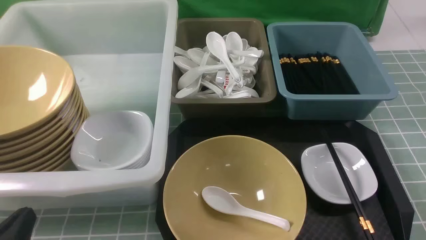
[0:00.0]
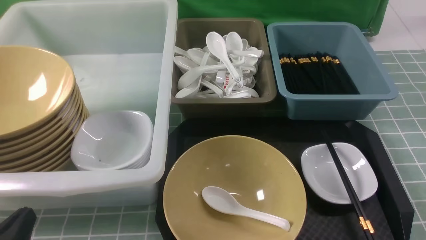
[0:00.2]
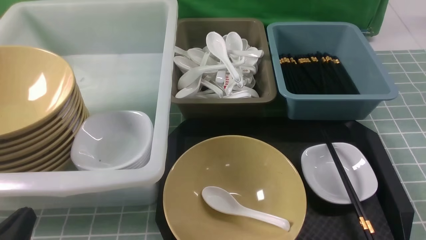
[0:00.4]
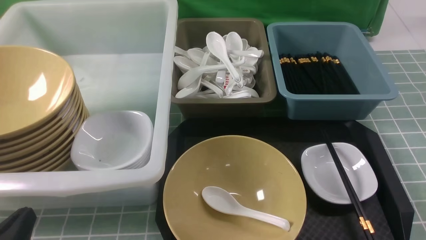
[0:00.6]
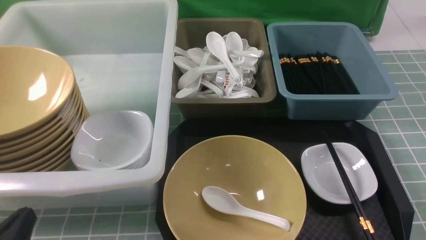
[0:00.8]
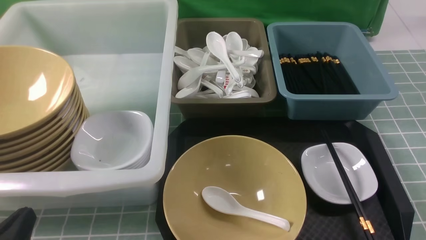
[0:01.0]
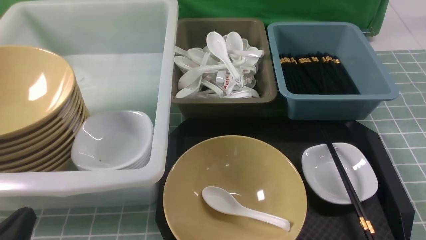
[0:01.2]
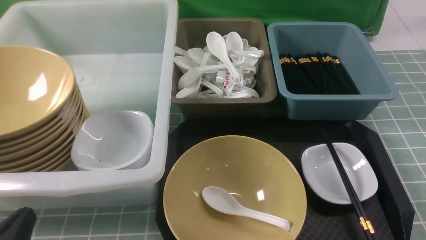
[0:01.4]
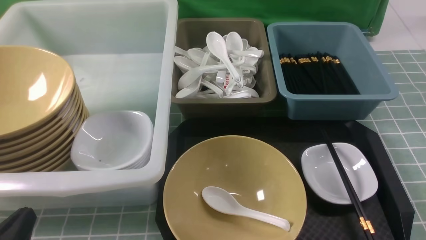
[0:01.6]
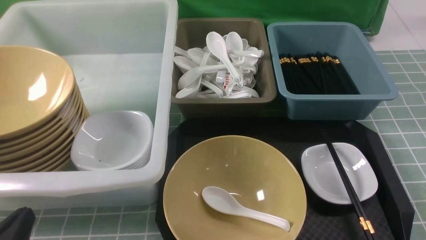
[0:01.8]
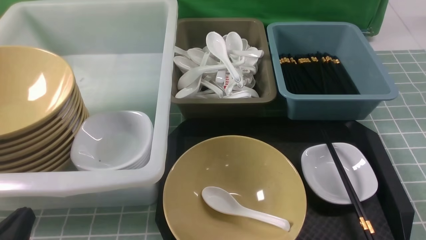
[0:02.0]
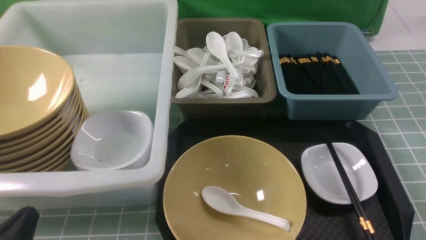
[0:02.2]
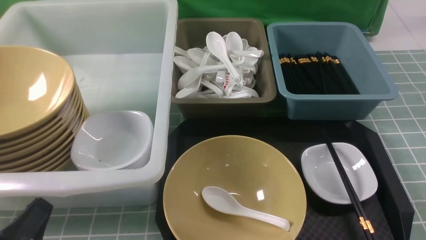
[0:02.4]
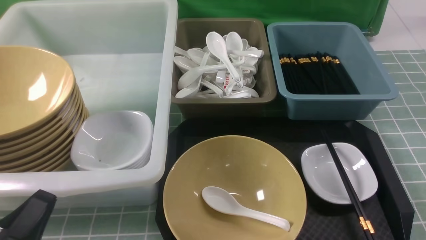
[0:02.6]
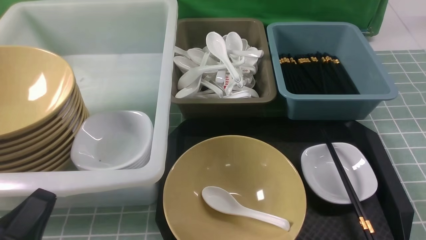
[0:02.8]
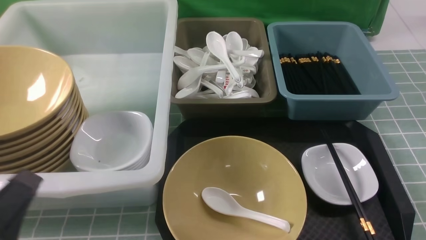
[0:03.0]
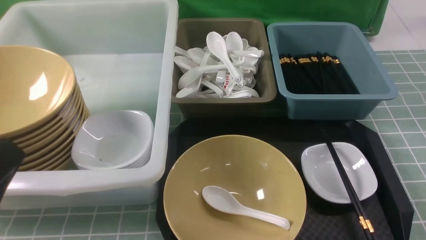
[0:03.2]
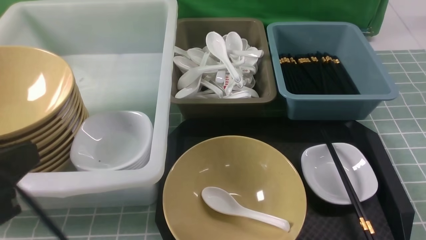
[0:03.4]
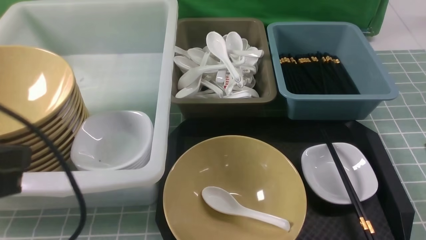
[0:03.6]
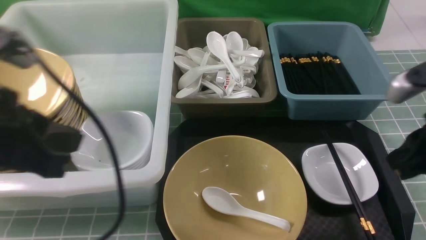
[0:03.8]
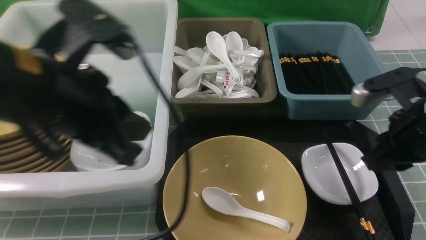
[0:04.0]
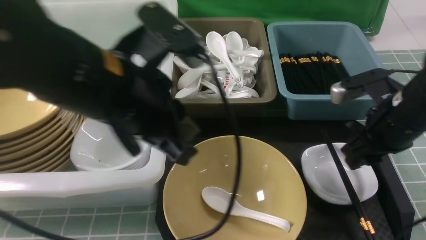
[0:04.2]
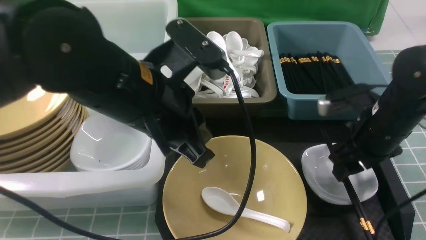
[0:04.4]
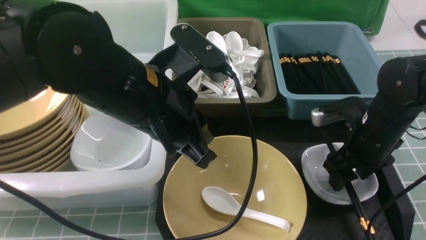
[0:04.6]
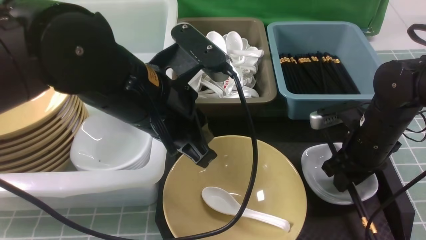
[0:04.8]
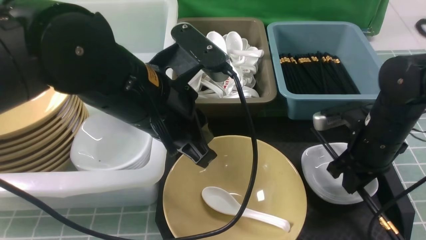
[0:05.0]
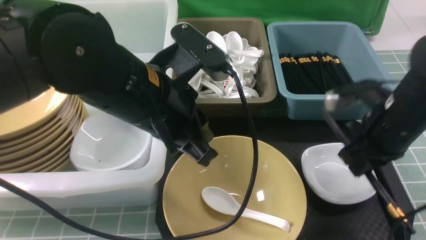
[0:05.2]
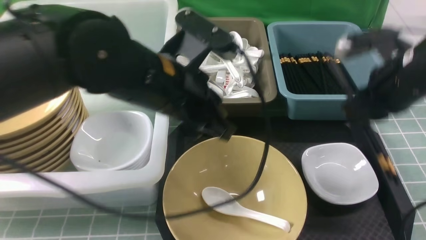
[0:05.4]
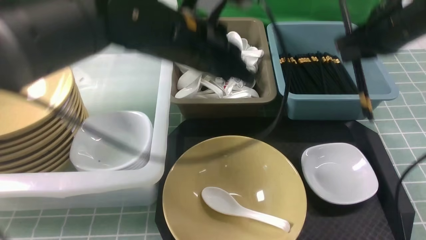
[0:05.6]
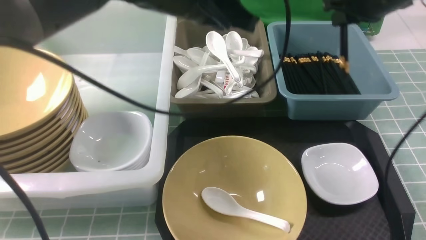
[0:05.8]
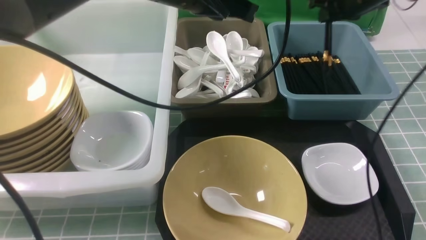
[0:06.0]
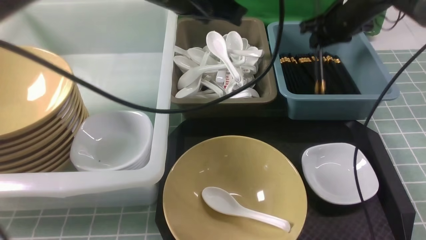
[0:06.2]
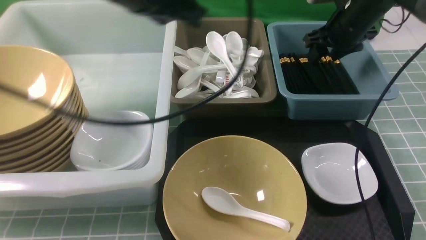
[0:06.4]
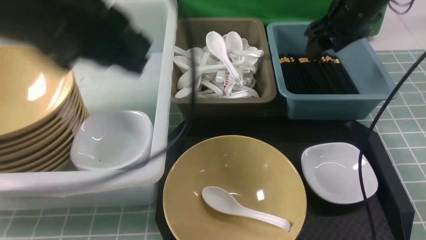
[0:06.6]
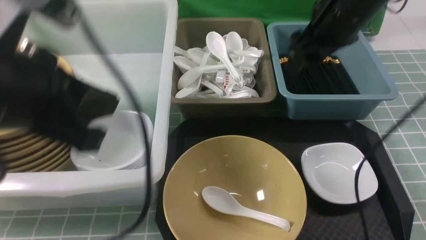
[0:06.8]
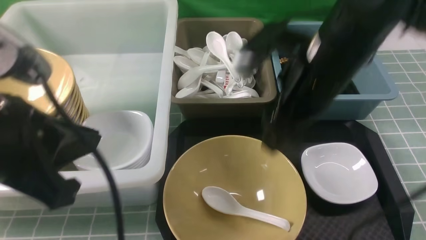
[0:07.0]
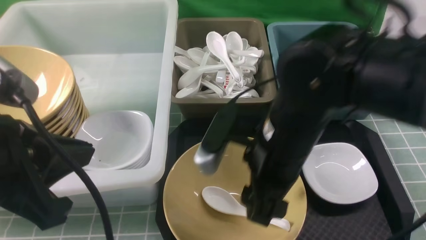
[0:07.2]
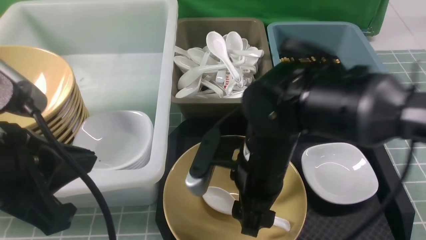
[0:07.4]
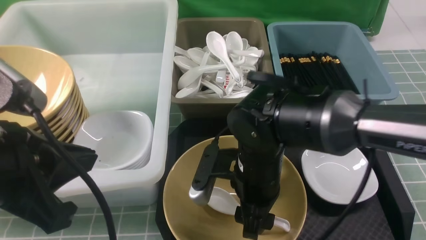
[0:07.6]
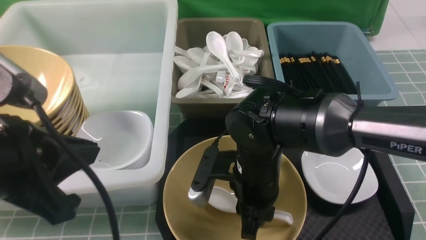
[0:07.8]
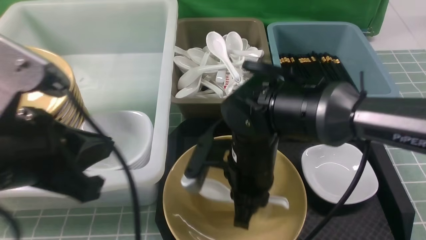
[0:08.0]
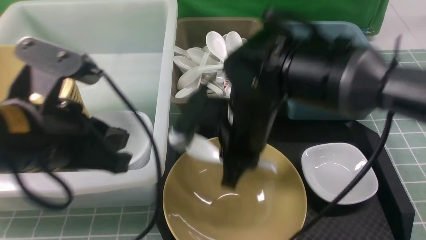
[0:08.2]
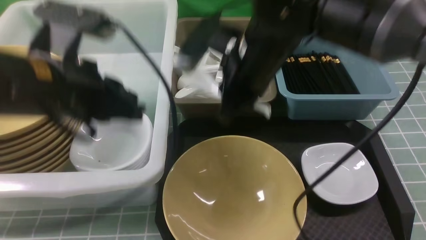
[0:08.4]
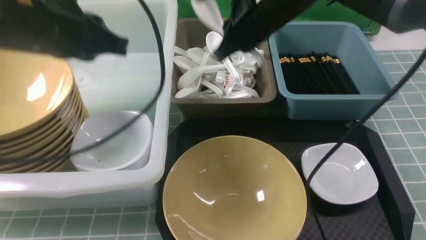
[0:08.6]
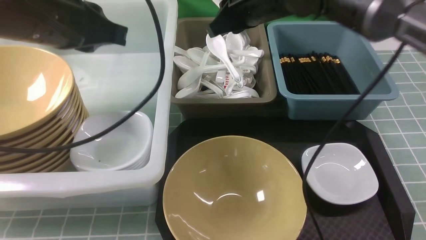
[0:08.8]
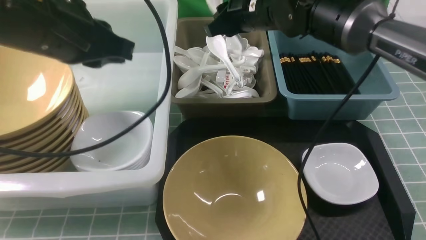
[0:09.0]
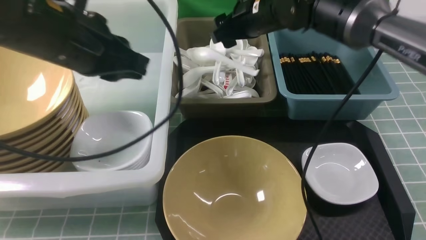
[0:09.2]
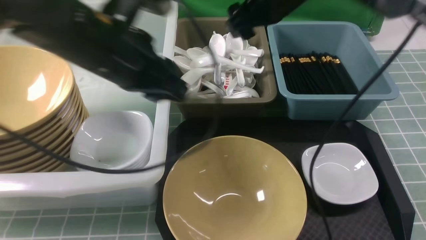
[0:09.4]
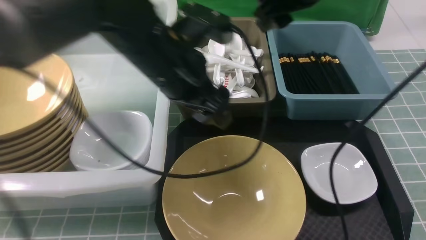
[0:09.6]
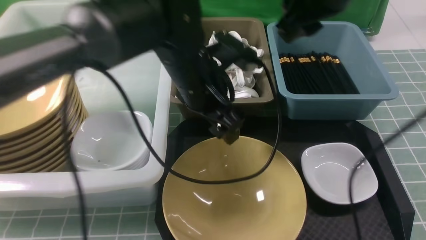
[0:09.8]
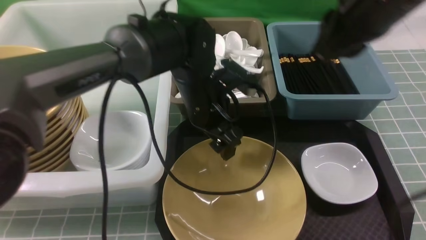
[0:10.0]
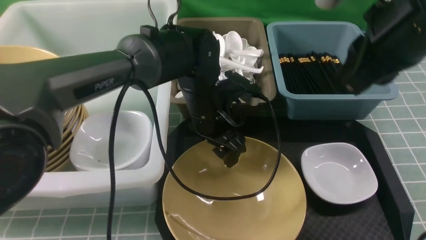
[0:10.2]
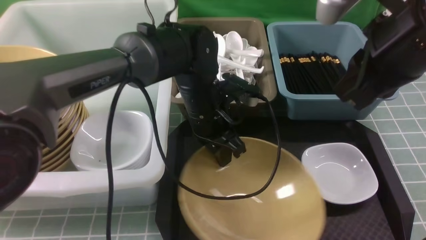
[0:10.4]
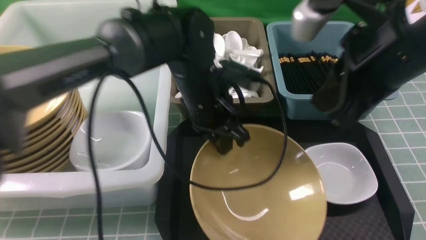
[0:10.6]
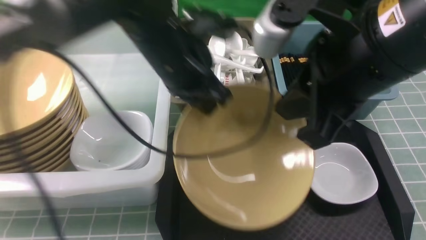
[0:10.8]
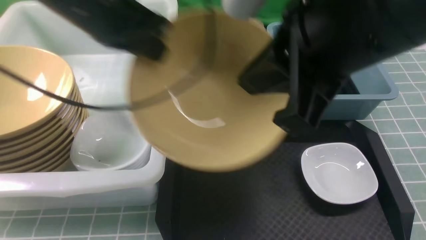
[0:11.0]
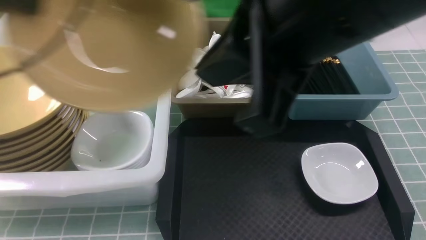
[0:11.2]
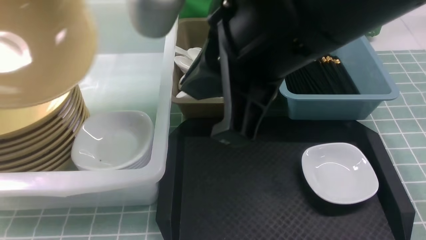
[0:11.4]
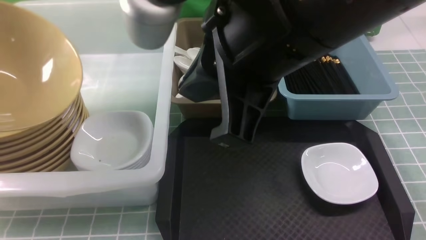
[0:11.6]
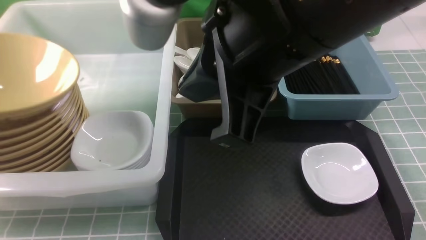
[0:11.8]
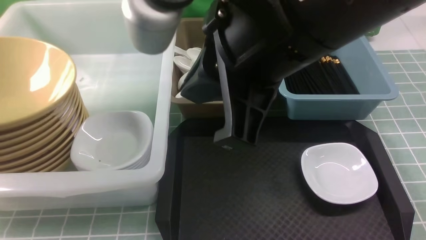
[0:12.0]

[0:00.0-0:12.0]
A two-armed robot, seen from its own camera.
Task of the whole recording: on blue table put chopsticks spoon bowls plates into blue grey white boxes.
Step, 0.0 to 5.0 s: use the right arm to grab the chopsticks.
Step, 5.2 to 6.8 s: use the right arm to put the chopsticks into the small storage box on the right.
Step, 7.0 to 8.0 s: use the right arm to grab the soup spoon in the middle.
Step, 8.2 to 9.2 s: use the right arm to put the soup spoon into the small storage box in the middle.
Step, 9.4 to 10.6 s: use the left arm to grab the yellow noodle bowl on the left.
Step, 10.8 to 12.0 s: use the left arm to put the noodle bowl into the large storage box on the left.
0.0 to 1.6 s: Both grippers stay about where they are.
1.6 to 3.0 s: The two grippers go roughly 5 cm upward.
3.0 to 4.4 s: The right gripper goes about 25 cm forward, and opens. The left gripper is displaced forward, to the right and upward by roughly 25 cm.
4.4 to 6.0 s: The left gripper travels forward and upward by some 10 cm; the right gripper shifts roughly 20 cm forward and upward, and closes up.
6.0 to 7.6 s: The right gripper goes roughly 30 cm backward, to the left and downward, and opens up, while the left gripper shifts about 25 cm backward and to the left.
7.6 to 9.0 s: The right gripper moves forward and upward, about 20 cm, and closes and opens again, while the left gripper goes roughly 15 cm forward.
9.0 to 10.4 s: The right gripper goes roughly 25 cm backward, to the right and upward, and closes; the left gripper goes about 20 cm to the right and downward, and opens, then closes again.
10.4 to 12.0 s: The left gripper is displaced to the left by some 40 cm, and opens its fingers, while the right gripper goes about 15 cm to the left and backward.

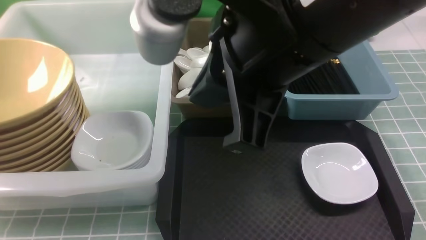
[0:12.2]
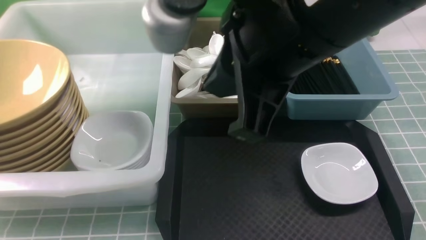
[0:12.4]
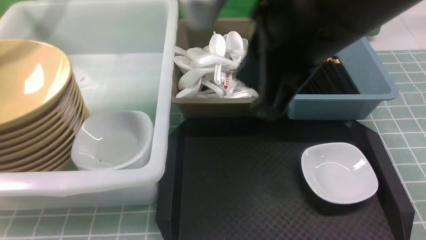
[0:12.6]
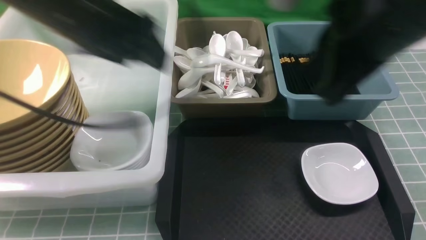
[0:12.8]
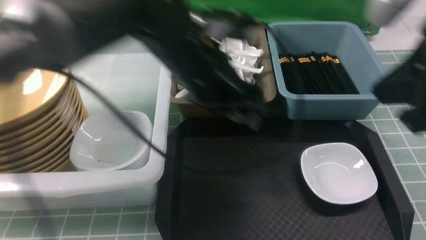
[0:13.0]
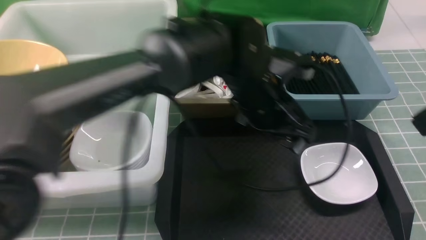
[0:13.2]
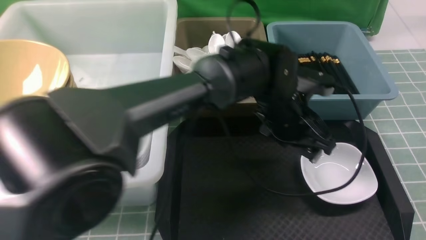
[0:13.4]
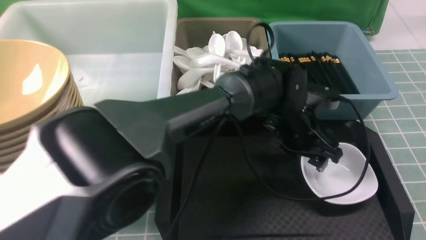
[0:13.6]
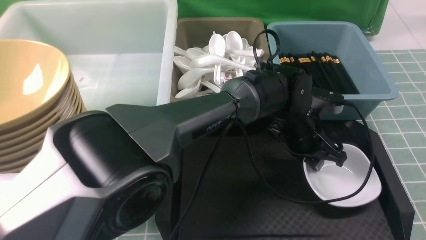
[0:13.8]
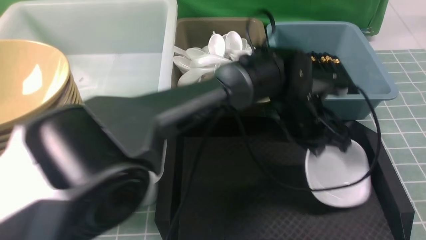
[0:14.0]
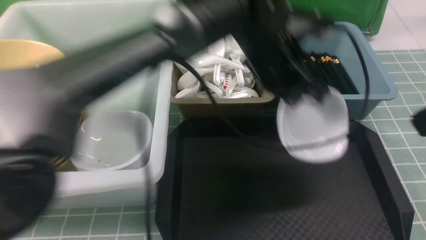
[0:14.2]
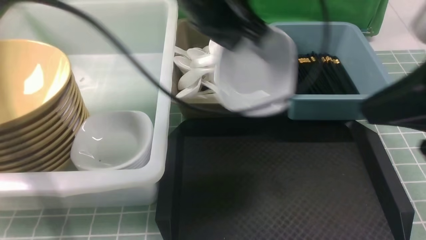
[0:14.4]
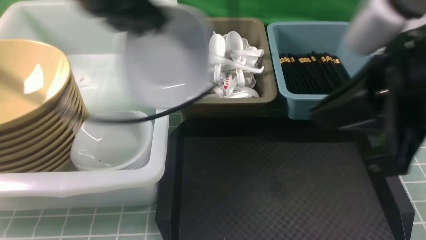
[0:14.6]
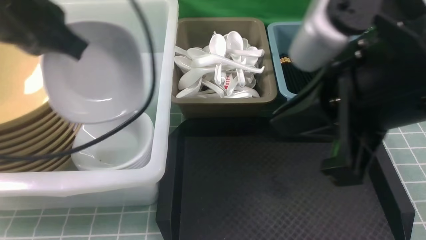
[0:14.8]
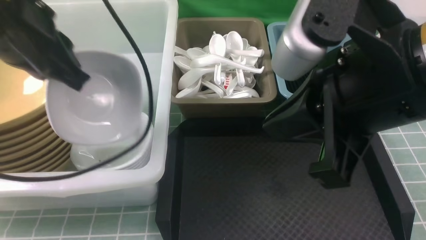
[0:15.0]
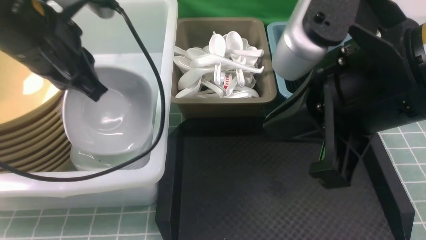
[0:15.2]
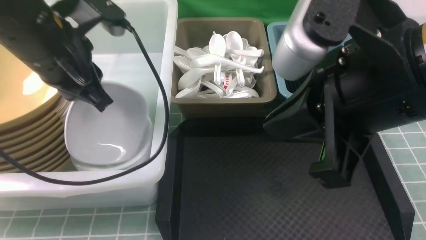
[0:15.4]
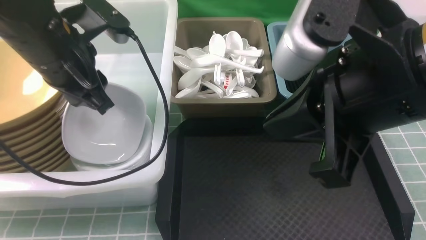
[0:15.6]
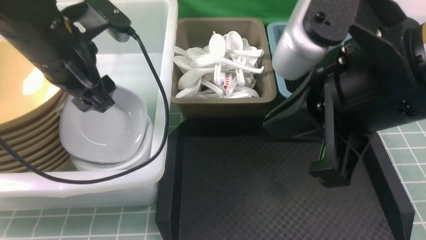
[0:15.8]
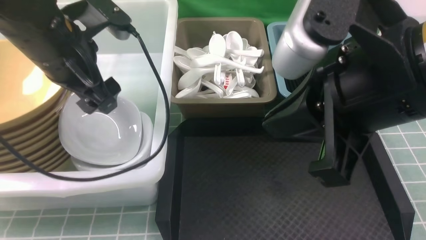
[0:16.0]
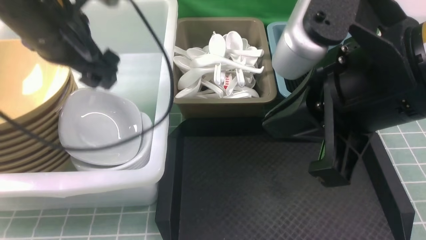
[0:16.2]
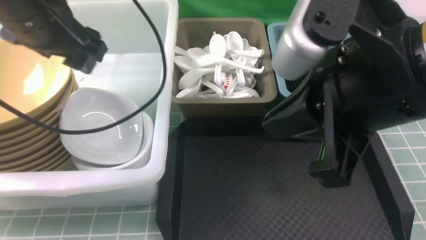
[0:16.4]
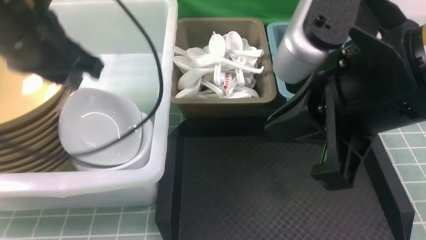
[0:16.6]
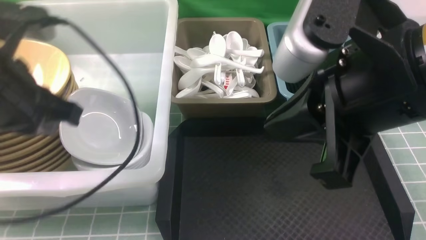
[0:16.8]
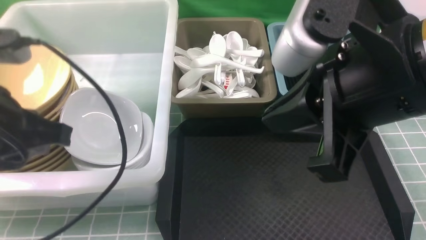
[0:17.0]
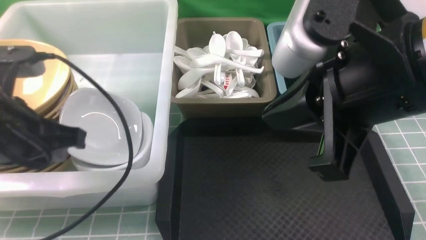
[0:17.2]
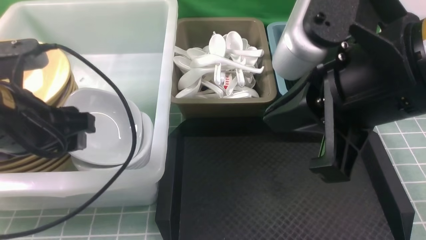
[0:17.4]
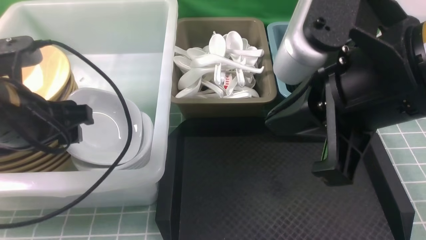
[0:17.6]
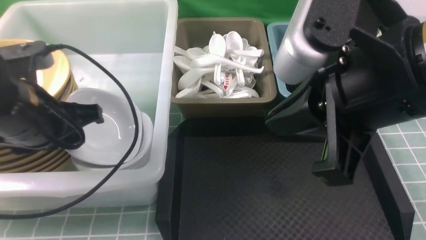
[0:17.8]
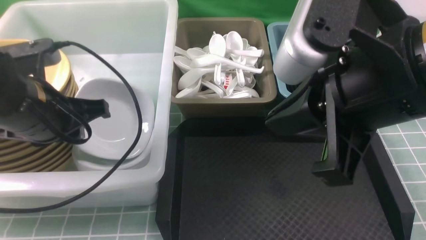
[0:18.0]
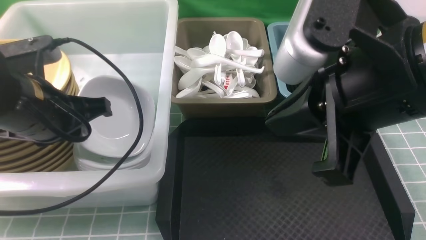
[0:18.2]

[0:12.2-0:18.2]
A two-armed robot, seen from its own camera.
Task of the whole recording: on blue table put chopsticks spoon bowls plates into blue grey white boxes.
Step, 12.2 to 14.0 s: use the left arm to grab the plate.
Step, 14.2 to 16.4 s: use the left arm to put the plate into the large storage box on the left.
12.2 to 13.8 s: The right gripper shifts approximately 20 cm to the right. Meanwhile the left gripper moves to the right and downward, approximately 60 cm, and closes up.
13.8 to 15.2 s: The right gripper goes approximately 10 cm to the left. Meanwhile the left gripper is displaced to the left and upward by some 35 cm.
15.2 to 16.6 s: The left gripper opens, then closes again.
16.6 to 18.2 s: The left gripper travels downward by roughly 10 cm, and opens, then closes once more.
